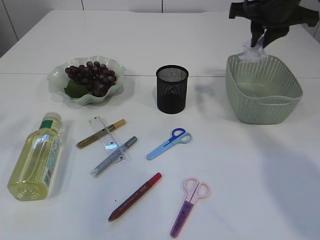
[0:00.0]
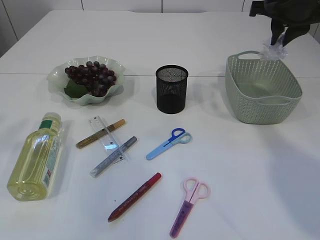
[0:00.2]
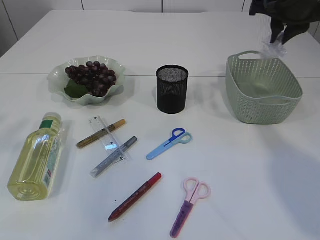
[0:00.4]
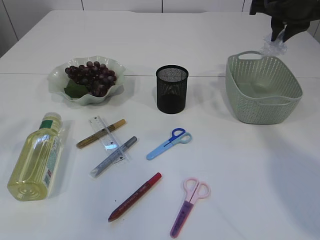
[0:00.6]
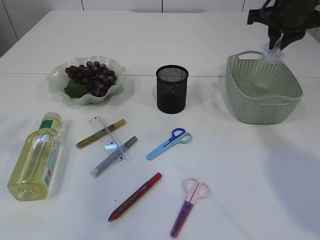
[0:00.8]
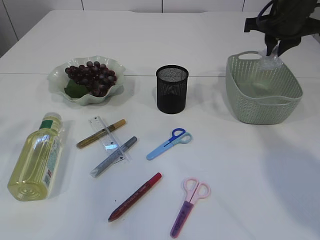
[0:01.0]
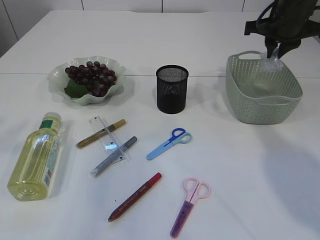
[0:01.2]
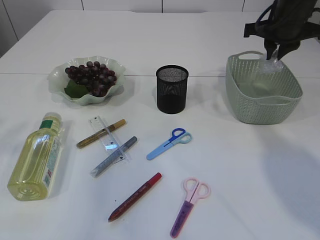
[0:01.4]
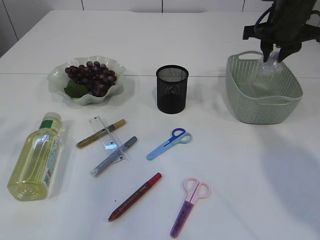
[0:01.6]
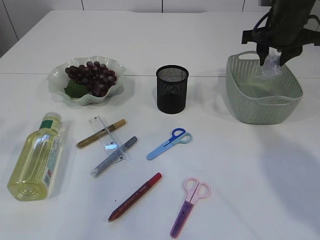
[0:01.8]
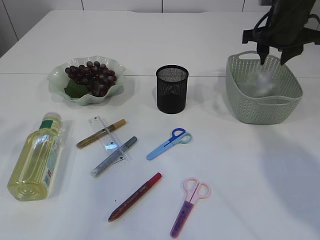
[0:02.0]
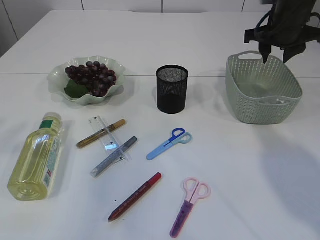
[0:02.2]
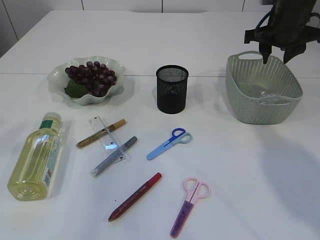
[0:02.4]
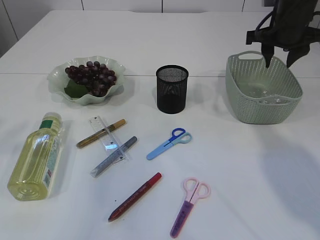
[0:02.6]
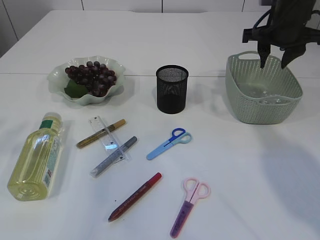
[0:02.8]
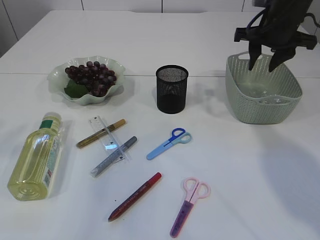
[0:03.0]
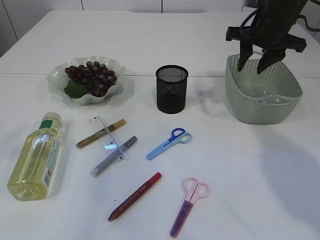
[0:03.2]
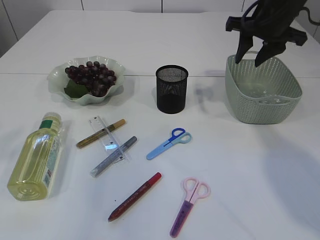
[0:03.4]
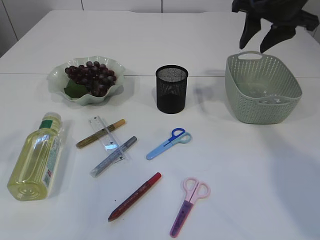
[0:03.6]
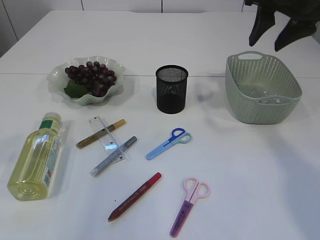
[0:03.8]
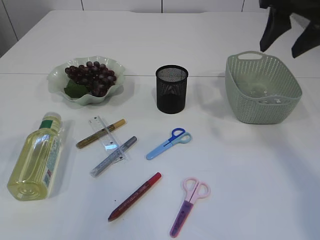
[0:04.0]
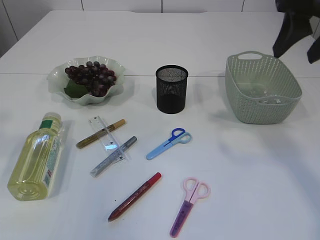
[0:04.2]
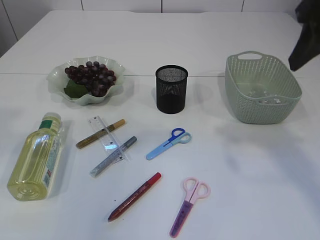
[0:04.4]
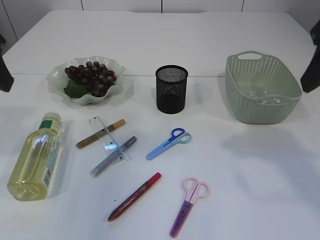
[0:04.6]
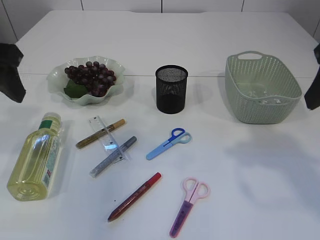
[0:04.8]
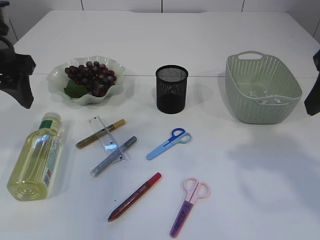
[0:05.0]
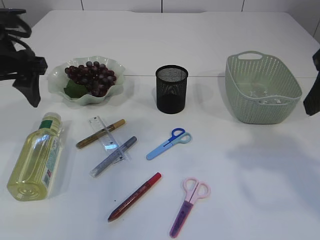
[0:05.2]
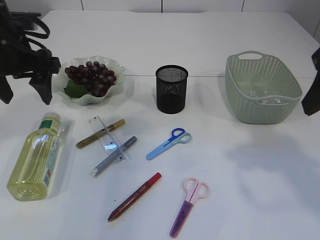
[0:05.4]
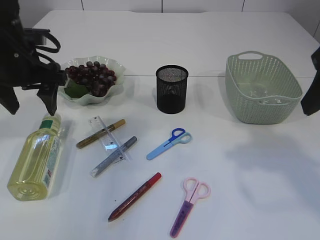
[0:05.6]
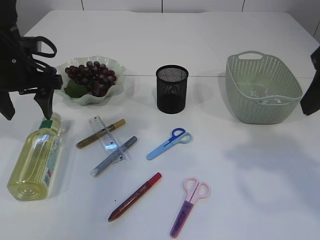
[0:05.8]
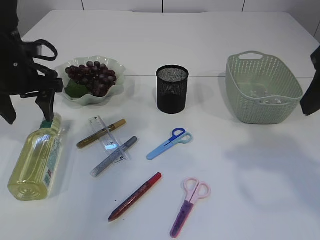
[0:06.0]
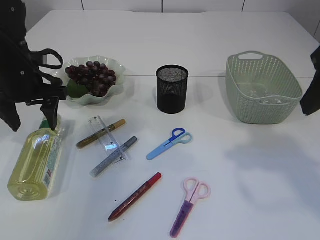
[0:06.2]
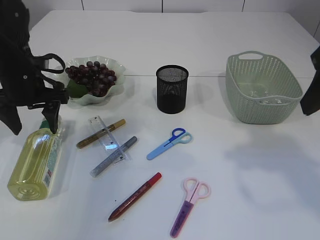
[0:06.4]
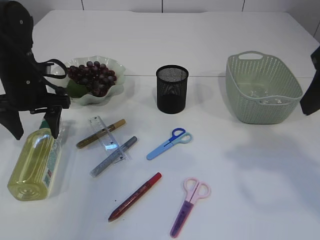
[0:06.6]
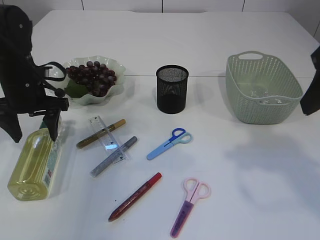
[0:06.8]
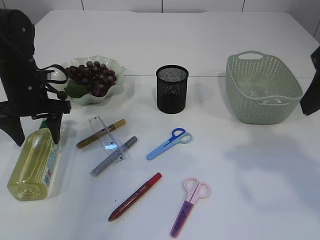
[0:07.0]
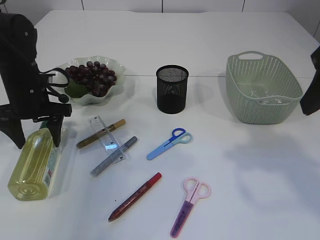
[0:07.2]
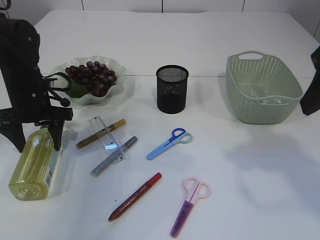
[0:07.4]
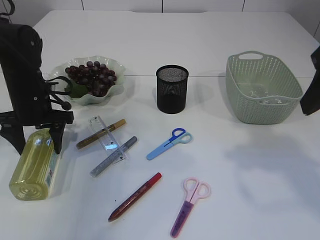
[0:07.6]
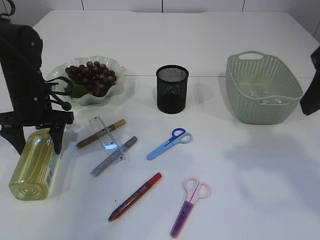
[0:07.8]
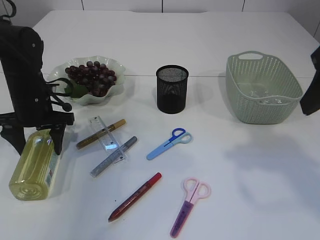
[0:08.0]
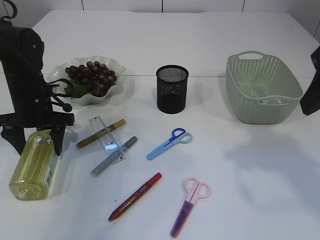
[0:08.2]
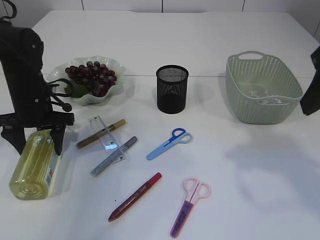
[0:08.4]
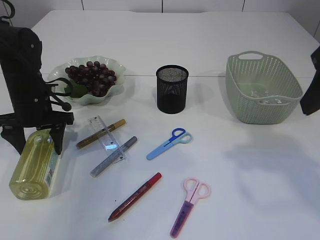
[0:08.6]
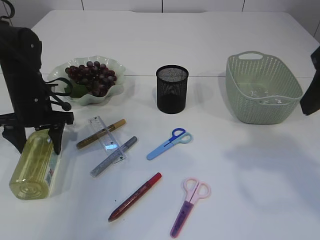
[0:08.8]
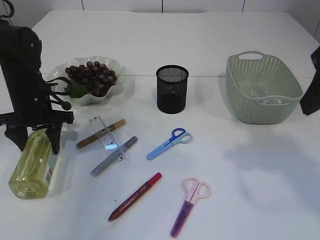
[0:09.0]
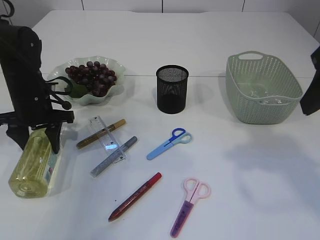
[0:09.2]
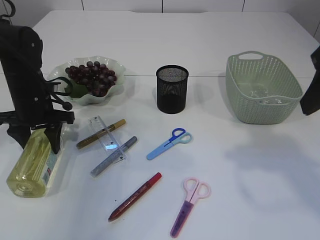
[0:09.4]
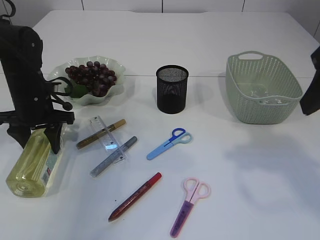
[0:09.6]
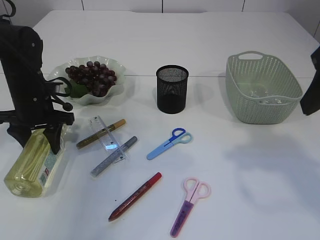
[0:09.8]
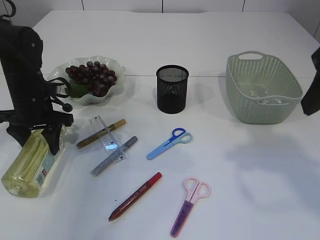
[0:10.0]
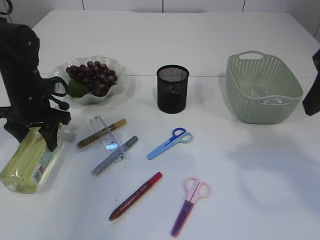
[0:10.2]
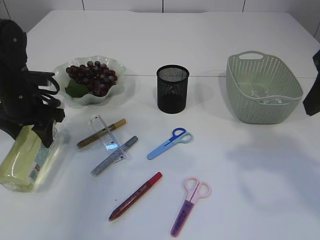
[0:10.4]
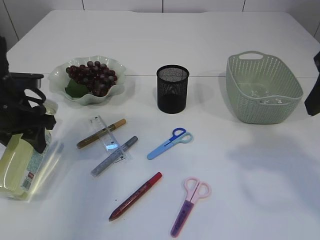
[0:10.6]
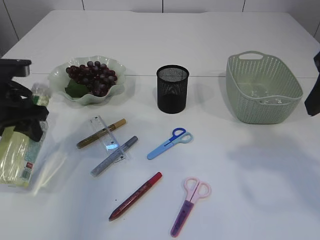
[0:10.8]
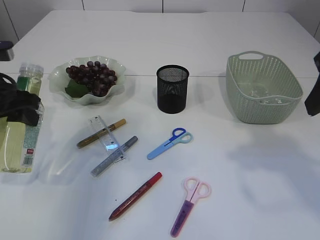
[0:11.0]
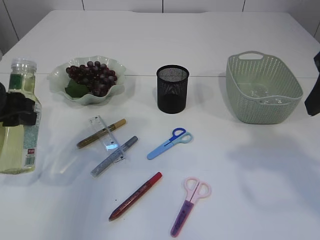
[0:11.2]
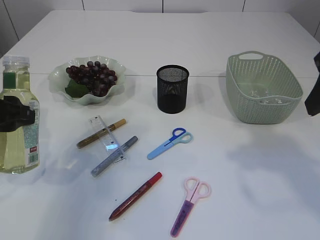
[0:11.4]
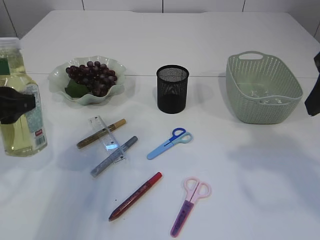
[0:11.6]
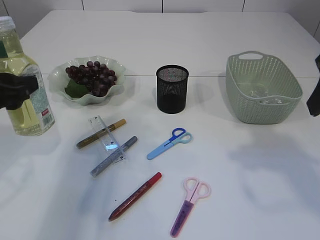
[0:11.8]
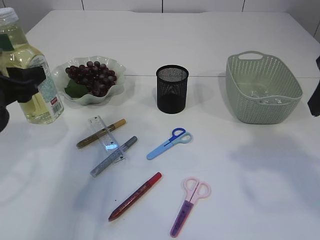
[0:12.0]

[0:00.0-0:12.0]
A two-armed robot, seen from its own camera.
Step, 0:00.0 to 0:03.6: Place the plastic in the basket.
Step, 0:03.8 to 0:10.8: Pick up the bottle with the left arm.
0:00.0 to 0:01.6: The right gripper ends up approximately 5 cm from where it was.
0:01.6 to 0:03.0: There are only small adjustments of the grippers.
0:03.0 to 0:04.4: The right gripper goes some 20 cm backward and upward.
0:04.4 to 0:06.0: The left gripper moves downward and forward, approximately 20 cm. Meanwhile the right gripper shifts by about 5 cm.
0:06.0 to 0:07.6: The left gripper moves downward, about 10 cm.
0:07.6 to 0:09.0: Both grippers stay put.
0:09.0 to 0:10.4: The grippers move only a little.
0:10.4 to 0:12.0: The left gripper moves backward and upward, some 10 cm.

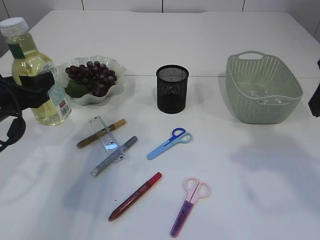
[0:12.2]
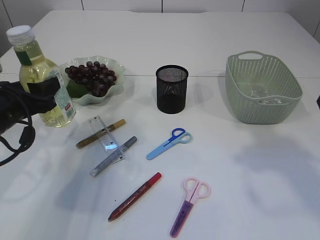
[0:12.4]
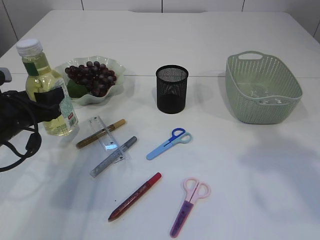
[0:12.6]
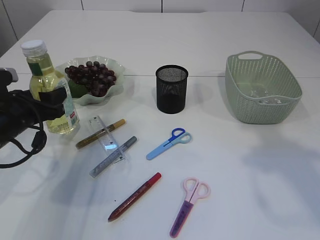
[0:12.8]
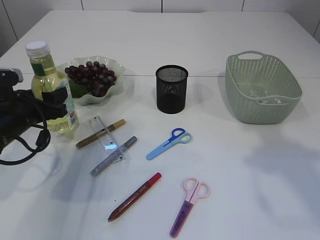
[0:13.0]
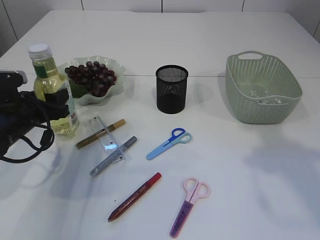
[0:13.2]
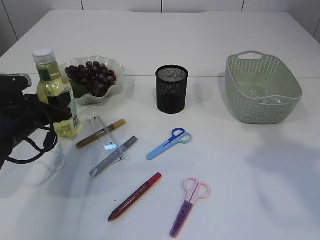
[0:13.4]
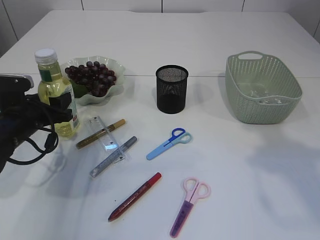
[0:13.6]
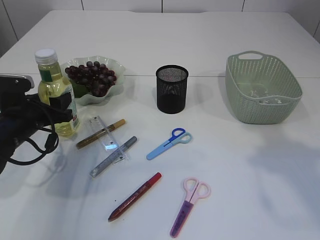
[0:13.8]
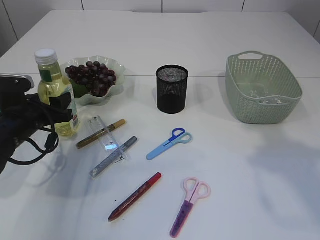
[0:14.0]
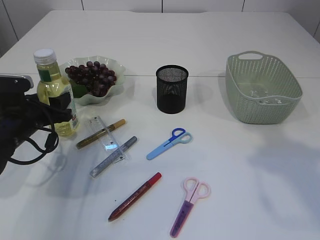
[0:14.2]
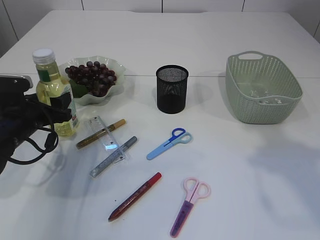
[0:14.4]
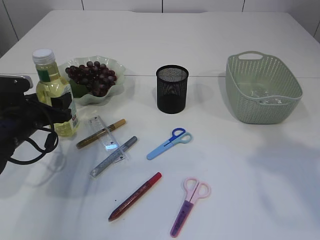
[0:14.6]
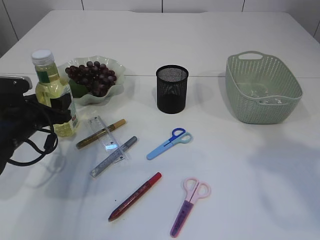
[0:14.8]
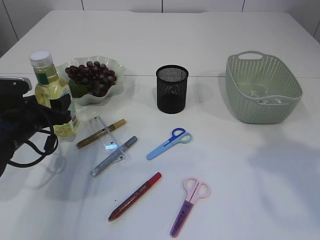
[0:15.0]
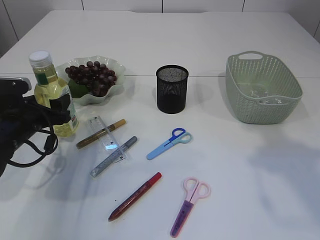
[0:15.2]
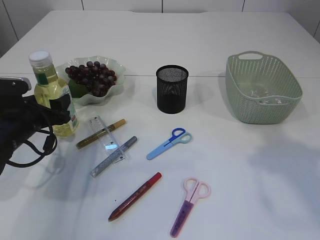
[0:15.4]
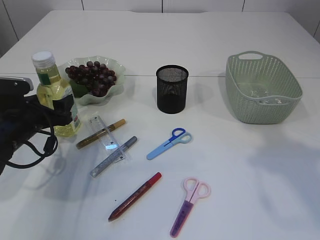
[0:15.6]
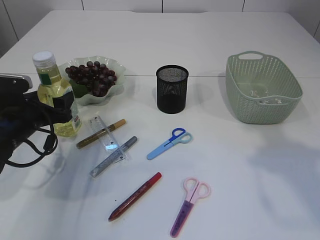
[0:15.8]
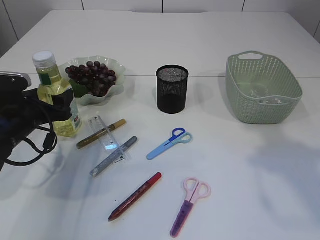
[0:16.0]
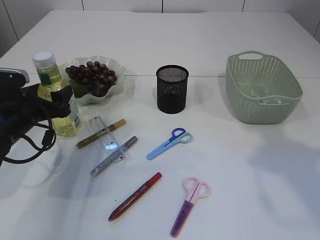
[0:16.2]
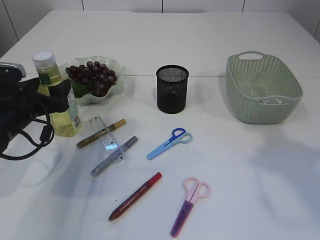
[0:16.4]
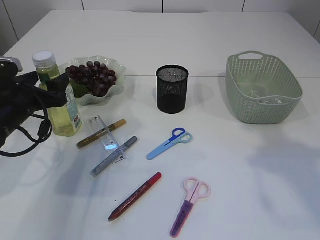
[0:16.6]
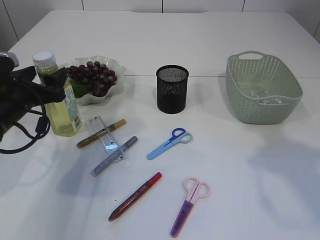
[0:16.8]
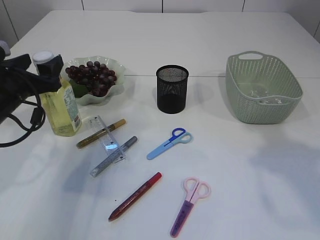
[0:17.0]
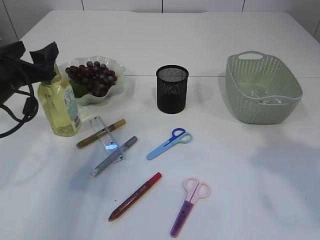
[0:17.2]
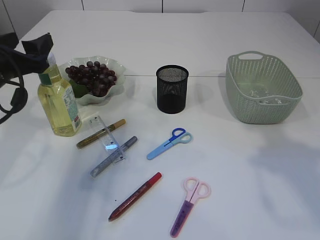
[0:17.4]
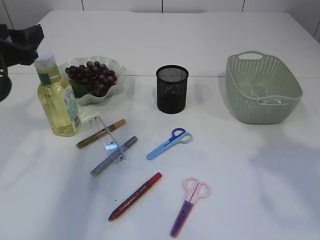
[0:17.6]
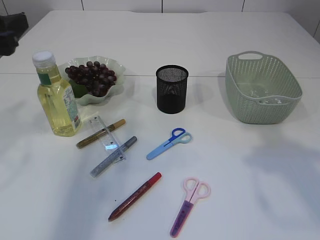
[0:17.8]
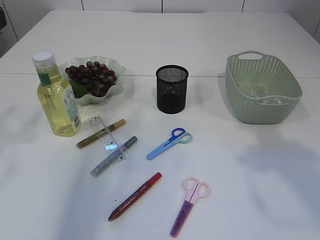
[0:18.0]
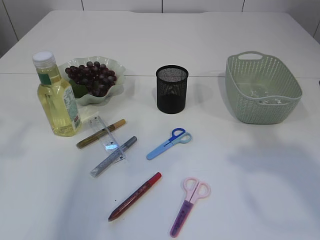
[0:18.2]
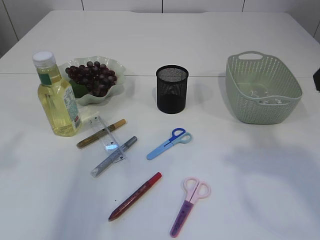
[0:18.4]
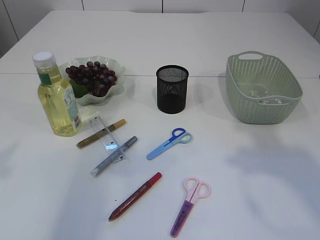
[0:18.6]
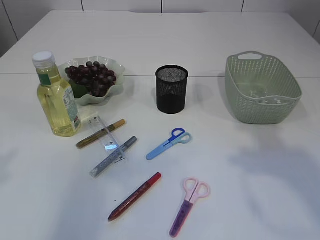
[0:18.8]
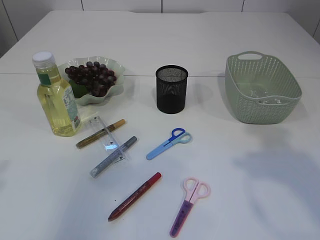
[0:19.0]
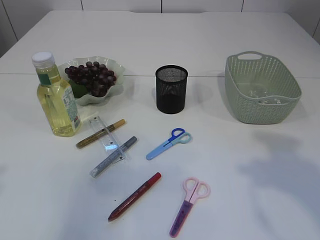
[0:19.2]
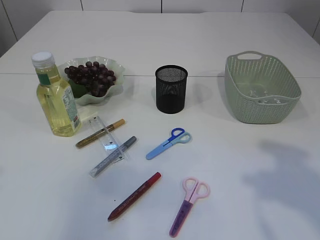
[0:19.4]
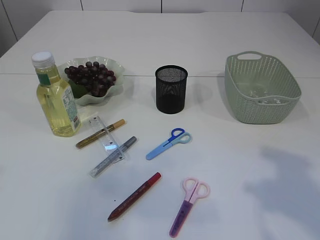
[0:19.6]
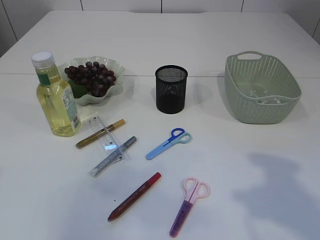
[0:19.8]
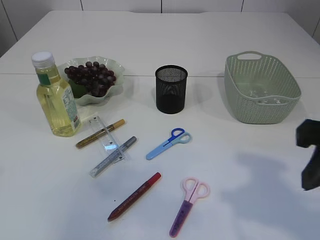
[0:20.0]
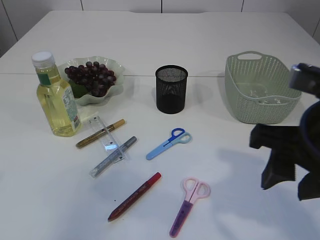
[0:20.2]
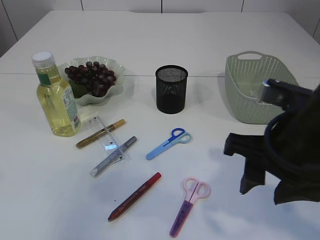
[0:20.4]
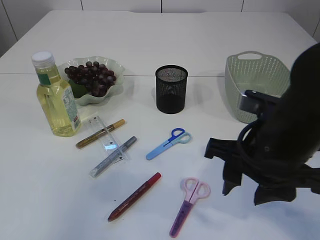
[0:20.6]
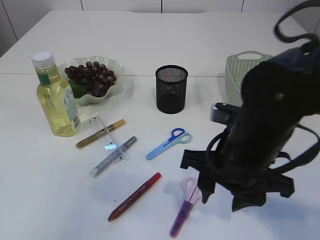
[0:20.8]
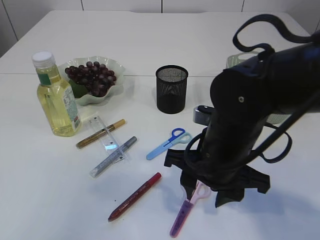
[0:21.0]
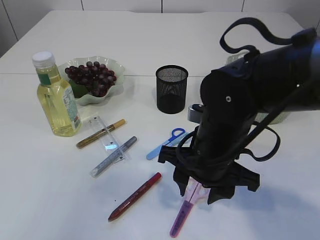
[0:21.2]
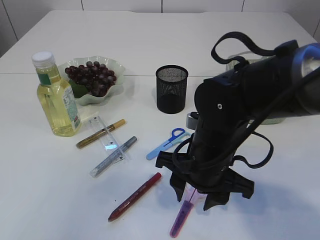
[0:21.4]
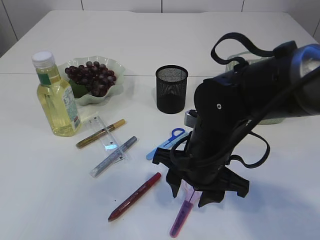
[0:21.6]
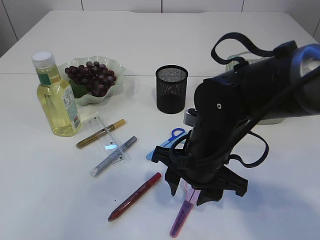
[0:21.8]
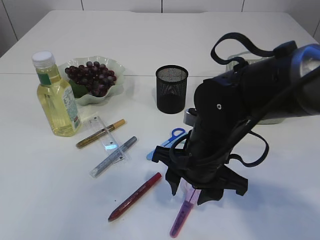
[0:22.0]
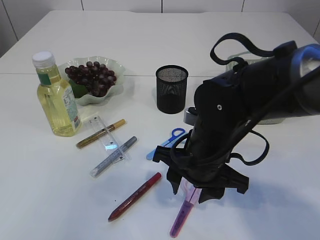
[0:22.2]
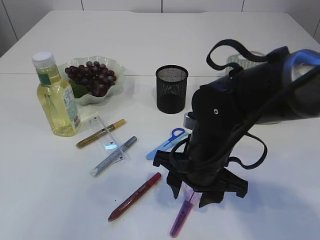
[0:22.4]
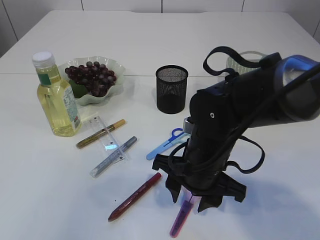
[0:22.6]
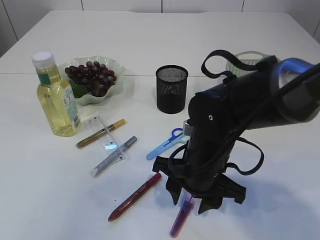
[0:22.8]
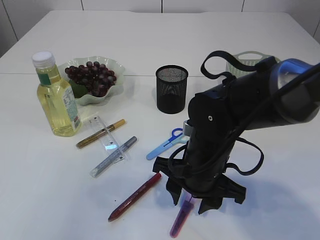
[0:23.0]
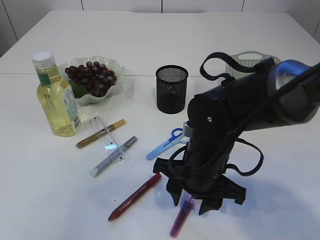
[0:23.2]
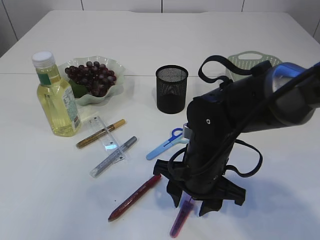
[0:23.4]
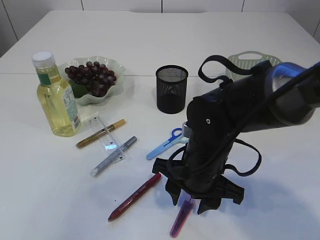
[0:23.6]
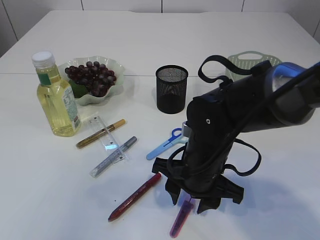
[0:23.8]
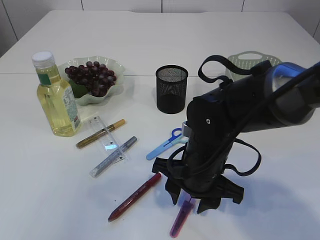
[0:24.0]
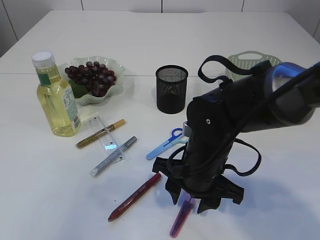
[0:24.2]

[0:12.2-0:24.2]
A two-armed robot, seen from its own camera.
Step, 0:12.2 to 0:17.6: Place the bottle.
0:12.2 to 0:13.8: The left gripper shifts about 10 cm downward and forward.
0:13.8 to 0:15.2: The two grippers keep their place.
0:15.2 to 0:16.6: The grippers move only a little.
0:16.6 to 0:18.2: The left gripper moves upward and backward, roughly 25 cm.
0:18.2 to 0:19.8: The right gripper heads backward and downward, covering about 10 cm. The left gripper moves backward, some 5 cm.
0:19.8 to 0:21.2: The right gripper goes about 25 cm to the left, downward and forward.
0:21.2 to 0:22.6: There are only small adjustments of the grippers.
0:22.6 to 0:24.2: The two grippers keep their place.
